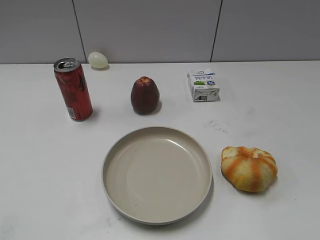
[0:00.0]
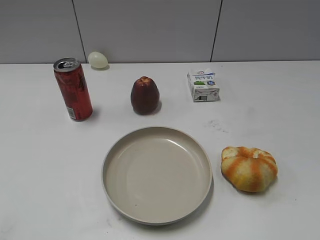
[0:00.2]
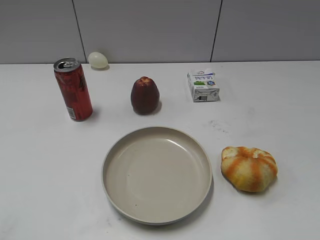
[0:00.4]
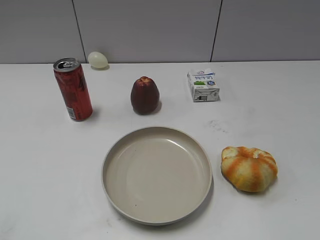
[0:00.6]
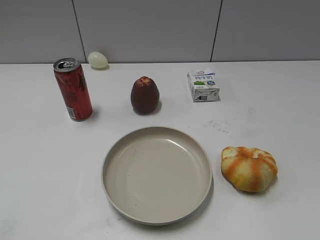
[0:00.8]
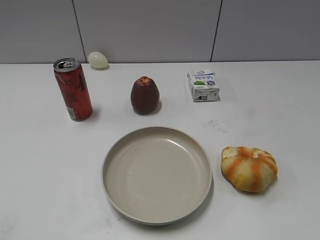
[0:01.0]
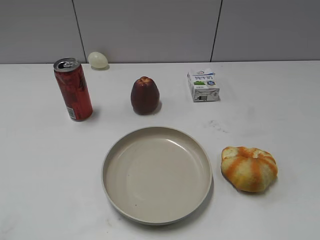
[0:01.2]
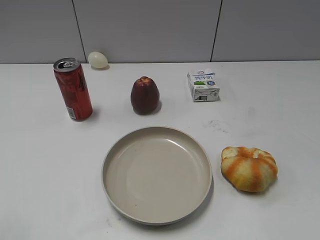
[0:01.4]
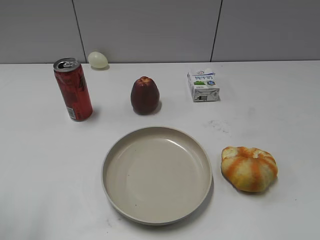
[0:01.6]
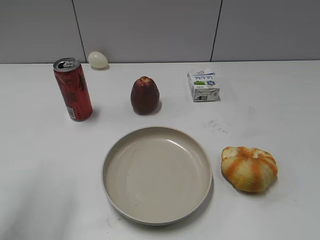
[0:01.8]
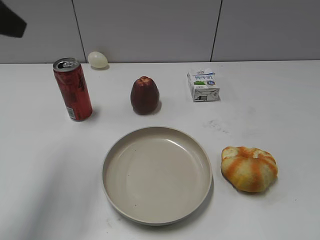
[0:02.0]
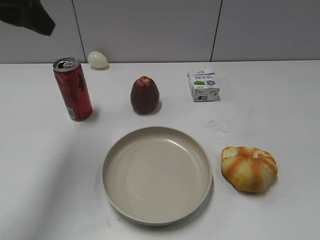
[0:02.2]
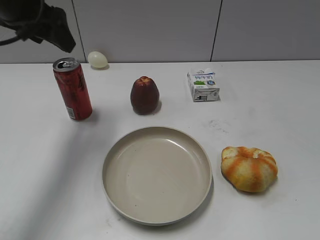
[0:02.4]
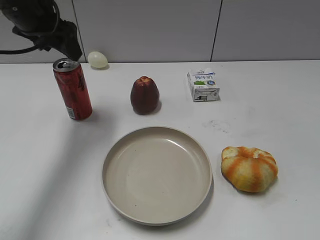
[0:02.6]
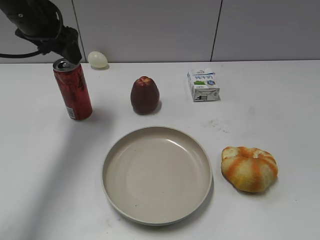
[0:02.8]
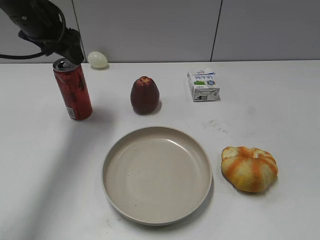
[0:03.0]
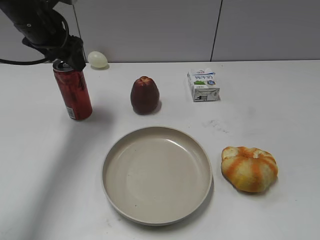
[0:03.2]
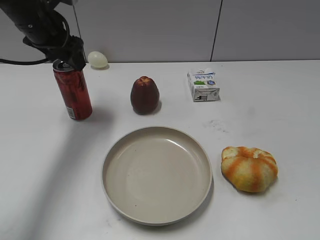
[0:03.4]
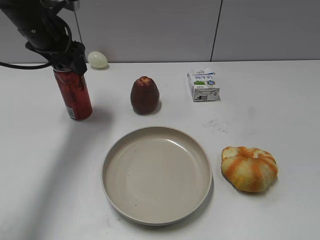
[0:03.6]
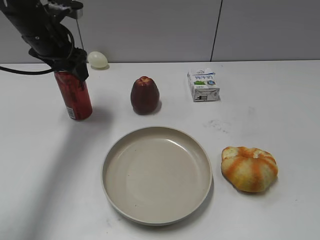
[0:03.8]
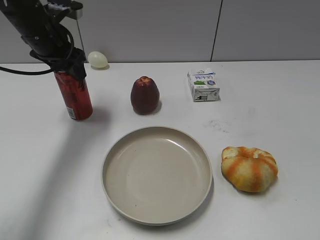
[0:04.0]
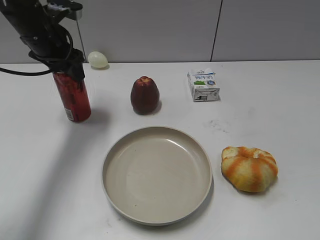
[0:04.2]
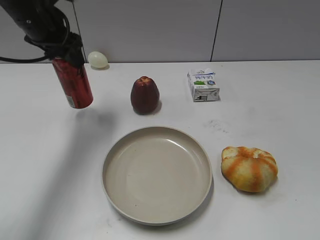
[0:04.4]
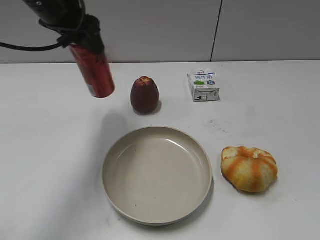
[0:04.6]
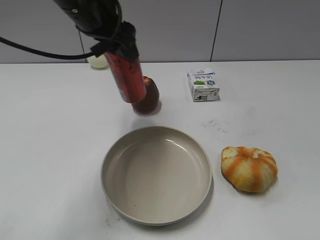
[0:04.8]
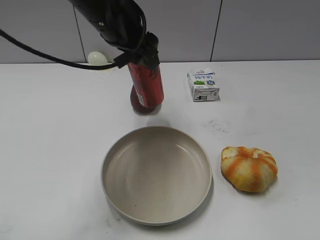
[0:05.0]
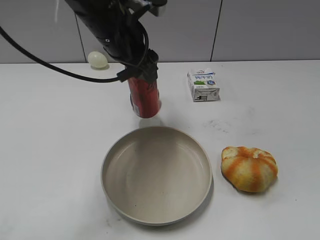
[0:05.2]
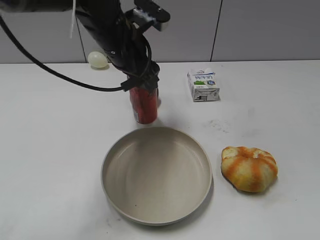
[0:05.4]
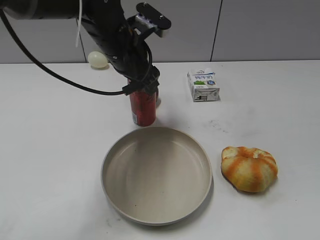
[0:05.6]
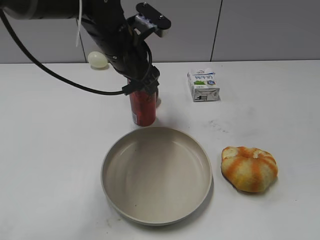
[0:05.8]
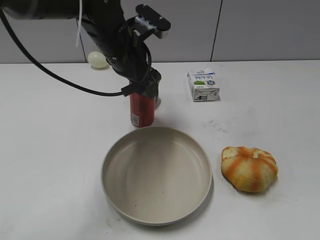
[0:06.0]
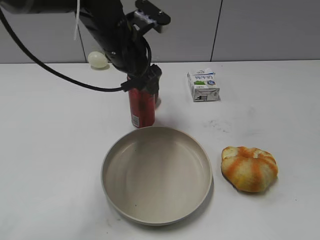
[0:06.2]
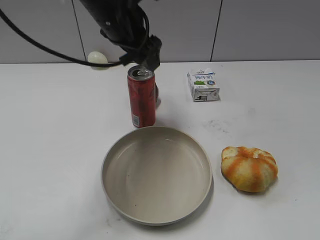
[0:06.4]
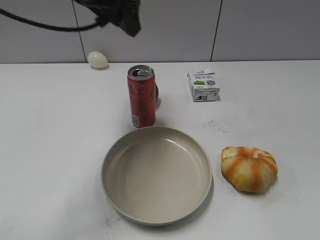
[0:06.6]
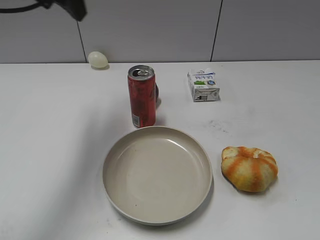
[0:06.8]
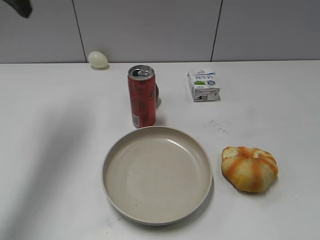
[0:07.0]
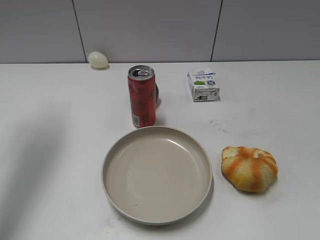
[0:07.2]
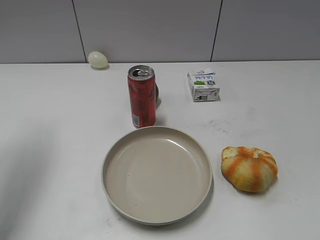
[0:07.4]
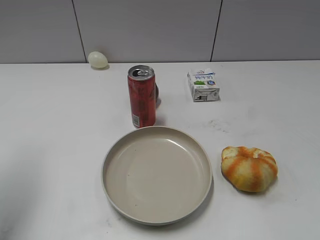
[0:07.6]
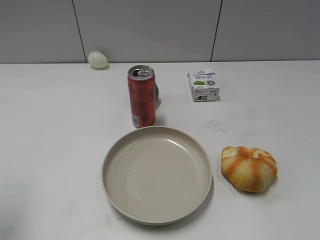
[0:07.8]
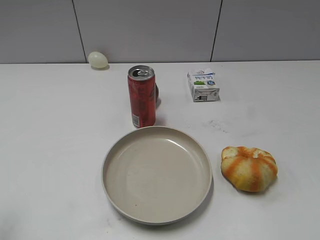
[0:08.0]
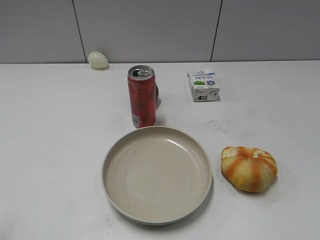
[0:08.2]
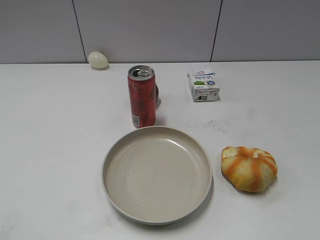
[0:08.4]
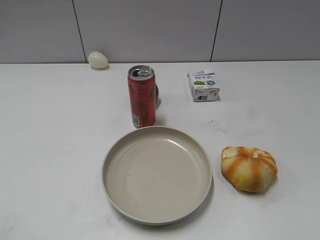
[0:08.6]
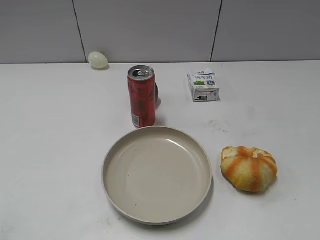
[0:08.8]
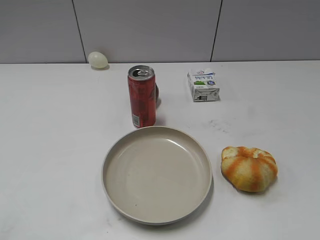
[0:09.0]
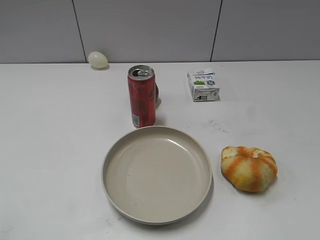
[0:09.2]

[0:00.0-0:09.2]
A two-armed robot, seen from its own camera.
Step, 0:01.0 to 0:04.2: Grasp the cola with left gripper.
Step, 0:04.4 to 0:06.4: Place the cola on the table with left gripper.
0:01.6 to 0:03.0: The left gripper is displaced forward by approximately 30 cm, and opens up.
0:03.0 to 0:04.6: The left gripper goes some 5 cm to the right, and closes.
0:04.6 to 0:06.2: The left gripper moves to the right and downward, some 10 cm, and opens up.
0:06.2 to 0:07.6: The left gripper goes some 30 cm to the left, backward and upward, and closes up.
0:07.6 to 0:09.2: The left gripper travels backward by roughly 25 cm.
